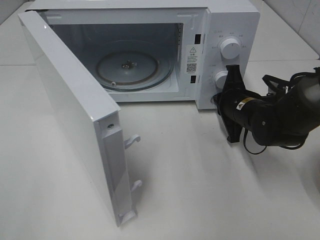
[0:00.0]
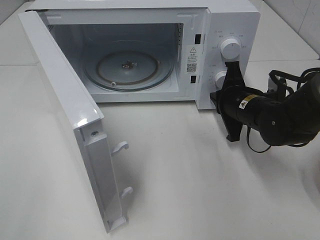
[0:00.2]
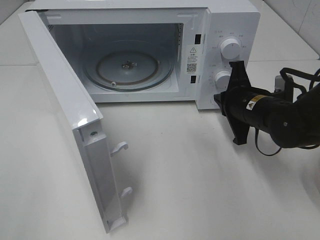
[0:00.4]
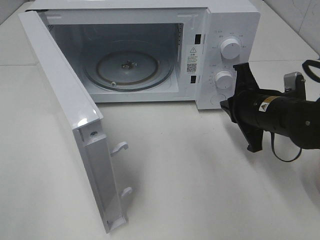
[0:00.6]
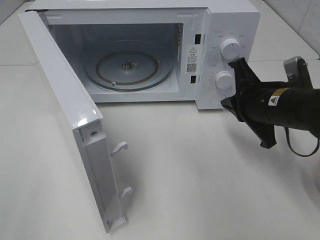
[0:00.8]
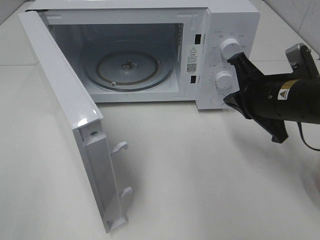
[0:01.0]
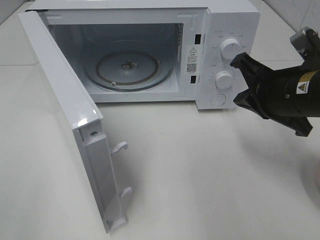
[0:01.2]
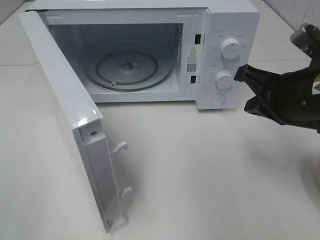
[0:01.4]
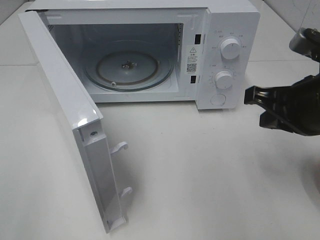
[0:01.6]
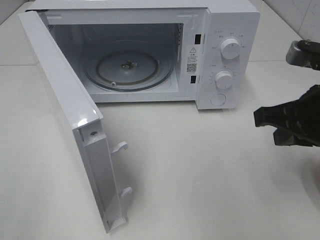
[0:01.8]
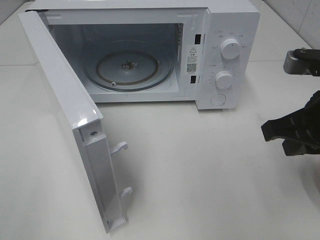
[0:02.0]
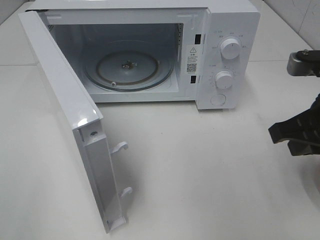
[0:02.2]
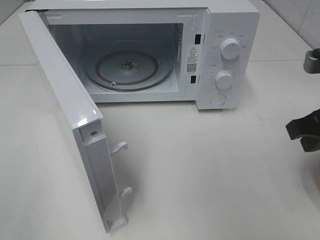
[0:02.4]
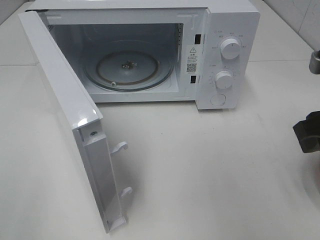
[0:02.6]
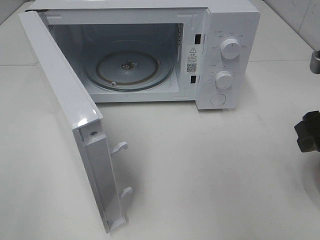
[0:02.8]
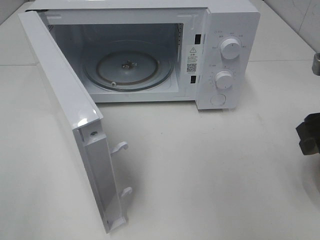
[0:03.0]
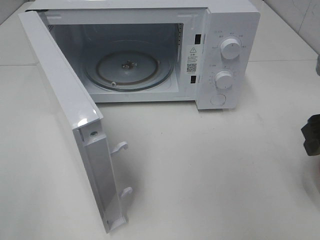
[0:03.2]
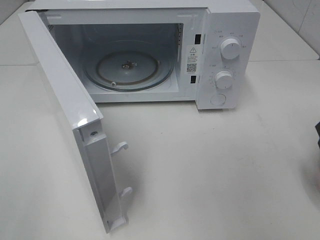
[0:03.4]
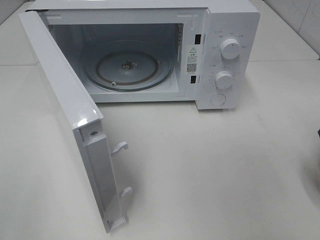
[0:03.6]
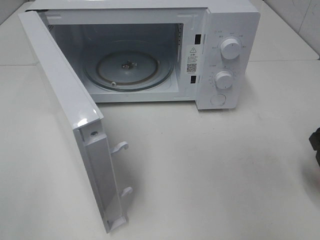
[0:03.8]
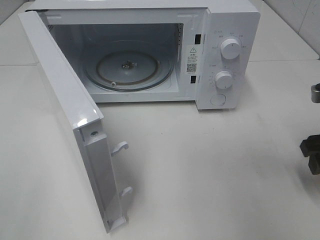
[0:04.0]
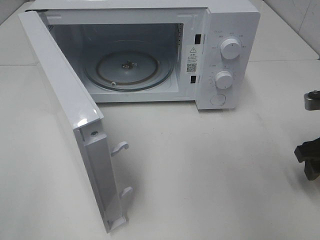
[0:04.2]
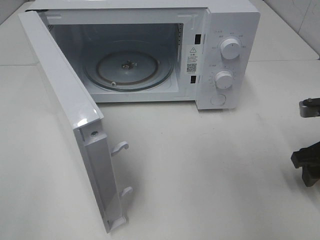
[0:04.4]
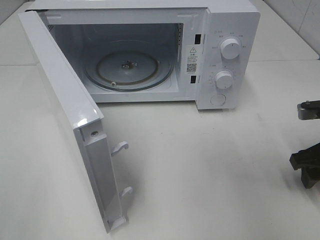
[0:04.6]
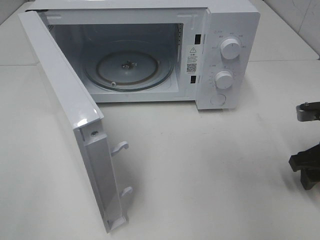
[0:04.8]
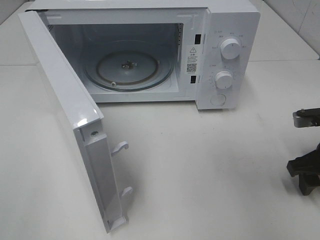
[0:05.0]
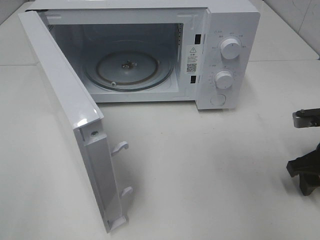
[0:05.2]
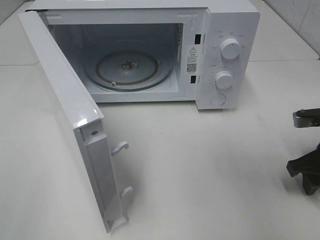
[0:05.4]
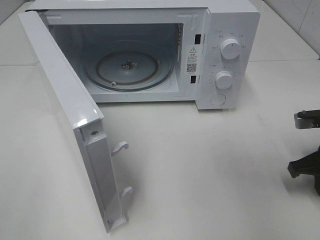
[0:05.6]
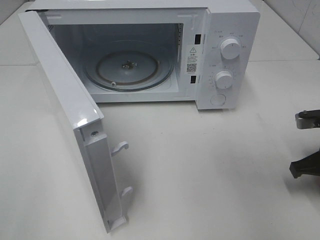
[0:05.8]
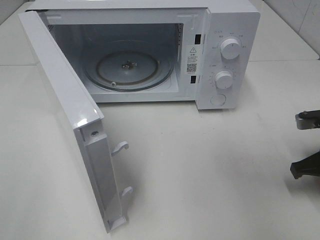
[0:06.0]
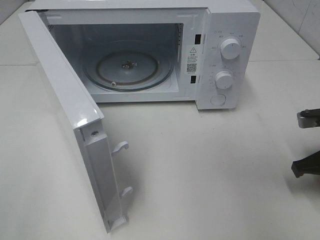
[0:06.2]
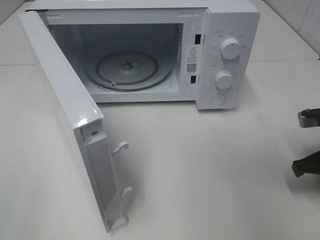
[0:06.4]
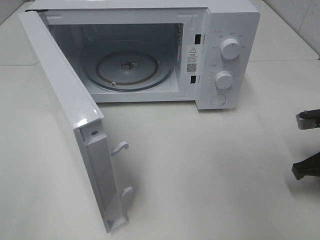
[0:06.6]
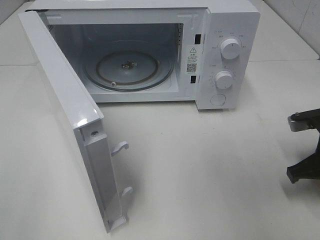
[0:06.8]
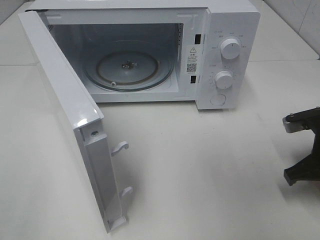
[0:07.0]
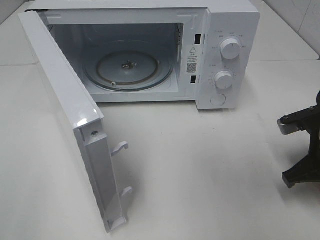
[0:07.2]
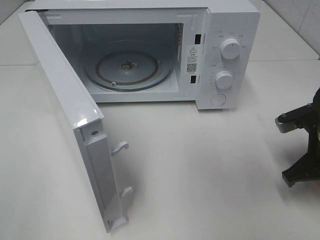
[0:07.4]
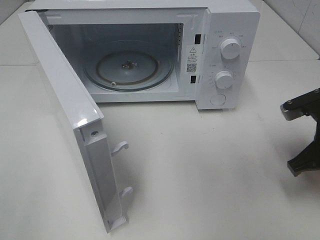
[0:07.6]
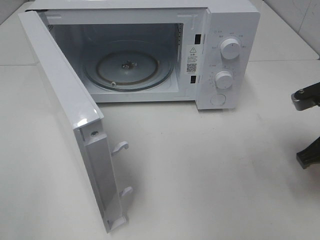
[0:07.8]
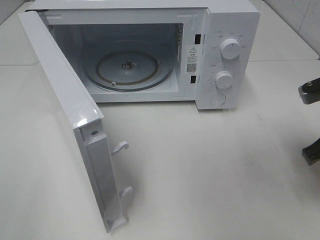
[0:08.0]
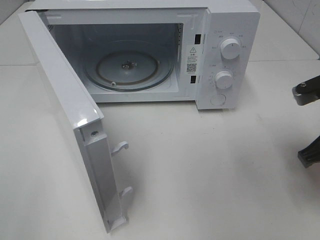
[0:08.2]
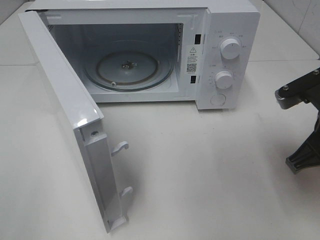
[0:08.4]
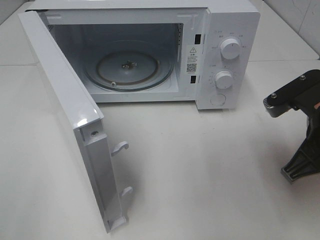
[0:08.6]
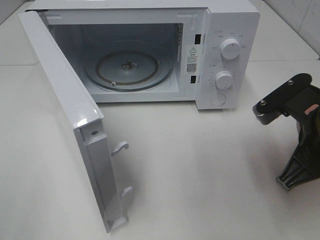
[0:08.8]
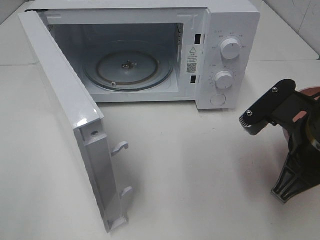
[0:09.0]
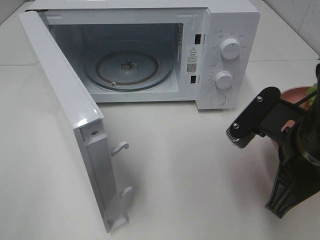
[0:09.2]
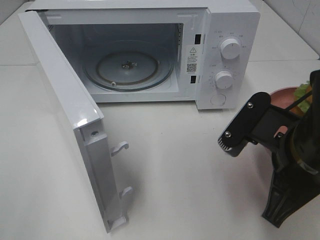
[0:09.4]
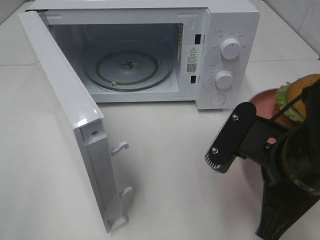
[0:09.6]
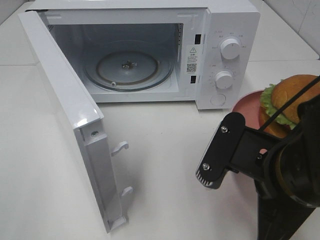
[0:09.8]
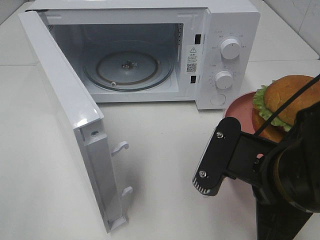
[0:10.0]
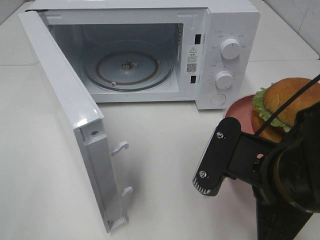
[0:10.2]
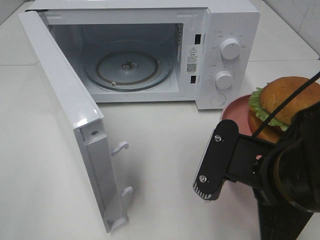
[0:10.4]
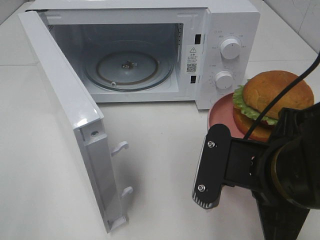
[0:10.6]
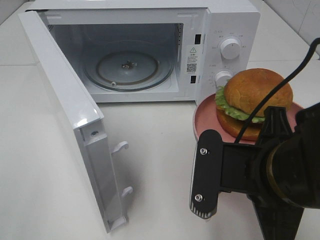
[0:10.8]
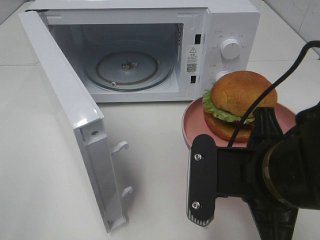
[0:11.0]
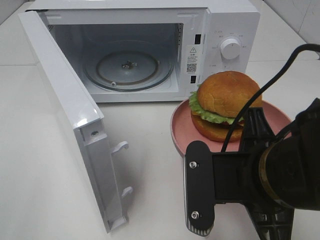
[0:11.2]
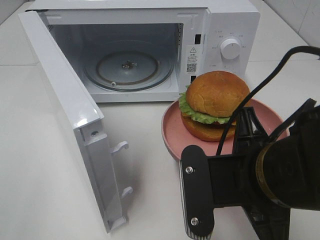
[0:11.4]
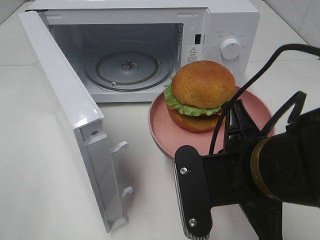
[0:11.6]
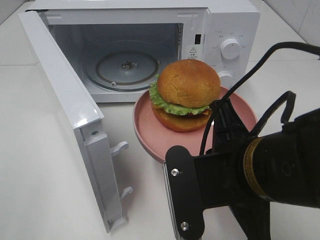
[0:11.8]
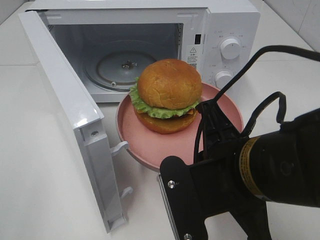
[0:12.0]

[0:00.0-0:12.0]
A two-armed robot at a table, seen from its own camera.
Task of the whole recording: Heat the burger.
Step, 0:00.4 to 0:06.2: Right hand: grab the plate with the hamburger.
0:00.0 to 0:01.6: The right gripper goes roughly 20 cm upward and backward.
0:01.6 to 0:03.0: The right gripper goes roughly 5 cm to the right, and opens its fingers.
0:03.0 to 0:04.4: The right gripper moves downward, some 10 cm.
0:04.4 to 0:06.0: The right gripper closes up.
0:06.0 to 0:07.6: The right gripper shifts by roughly 5 cm.
0:07.6 to 0:09.0: The right gripper moves to the left and backward, roughly 10 cm.
0:09.0 to 0:10.4: The right gripper shifts about 10 cm to the left and backward.

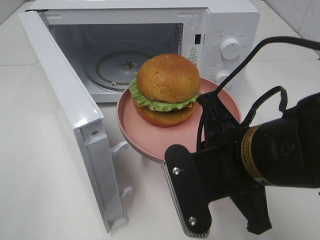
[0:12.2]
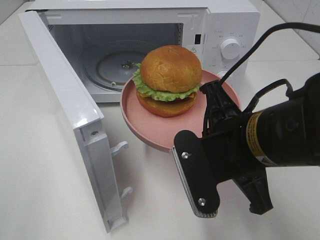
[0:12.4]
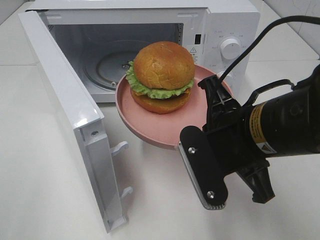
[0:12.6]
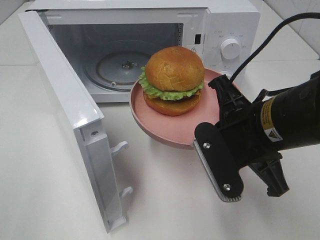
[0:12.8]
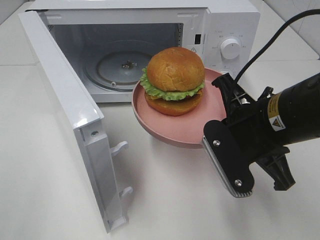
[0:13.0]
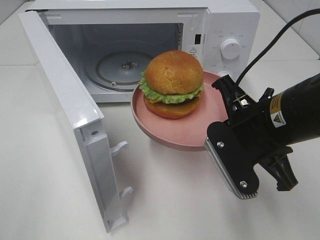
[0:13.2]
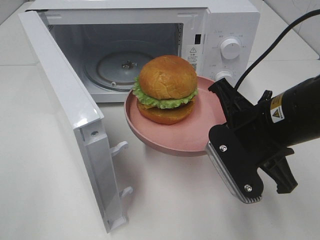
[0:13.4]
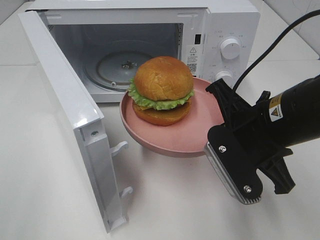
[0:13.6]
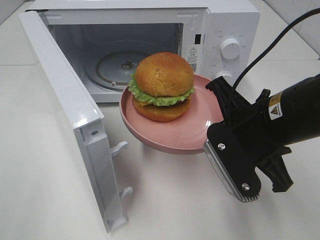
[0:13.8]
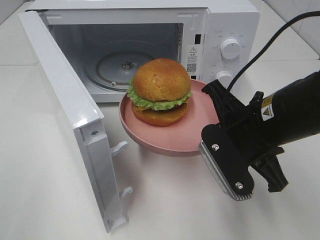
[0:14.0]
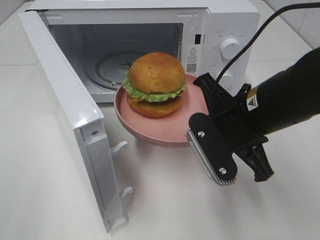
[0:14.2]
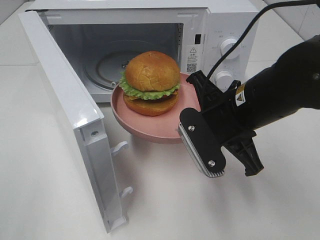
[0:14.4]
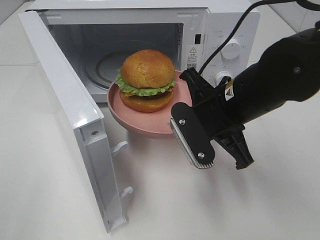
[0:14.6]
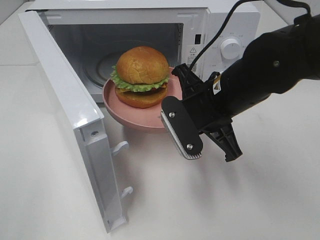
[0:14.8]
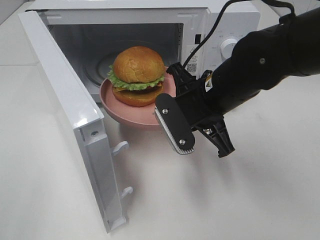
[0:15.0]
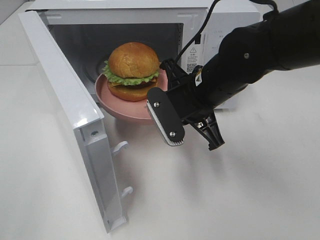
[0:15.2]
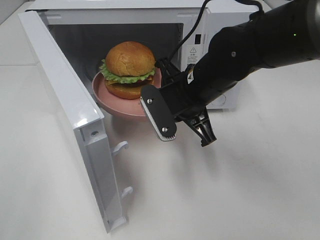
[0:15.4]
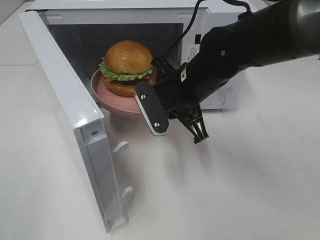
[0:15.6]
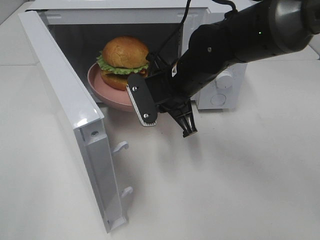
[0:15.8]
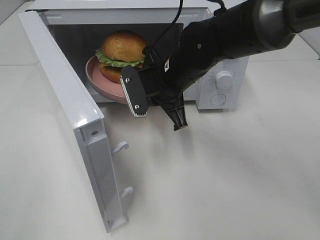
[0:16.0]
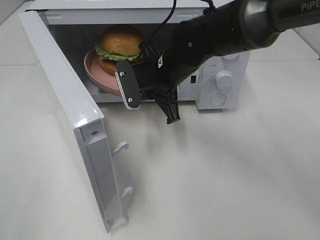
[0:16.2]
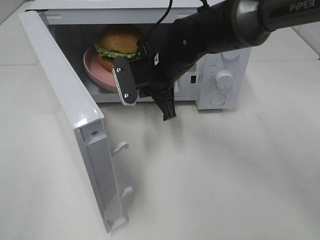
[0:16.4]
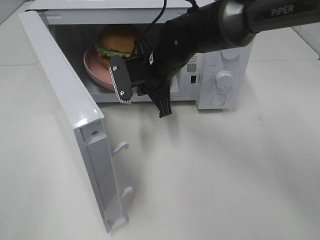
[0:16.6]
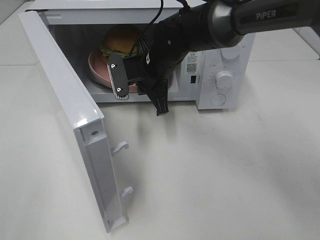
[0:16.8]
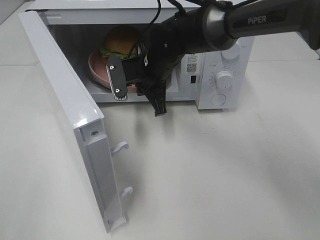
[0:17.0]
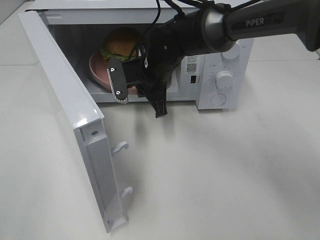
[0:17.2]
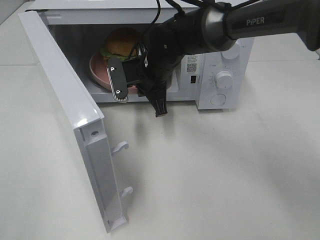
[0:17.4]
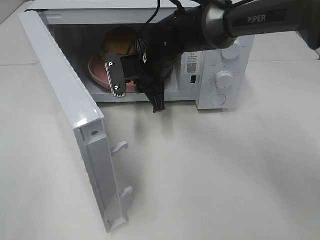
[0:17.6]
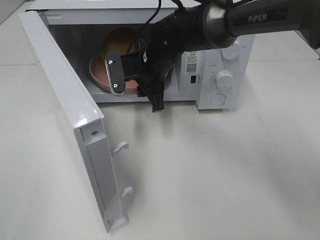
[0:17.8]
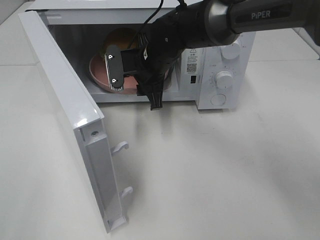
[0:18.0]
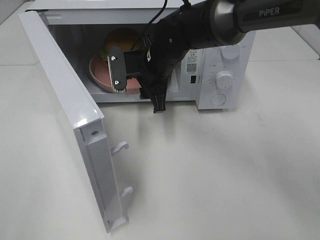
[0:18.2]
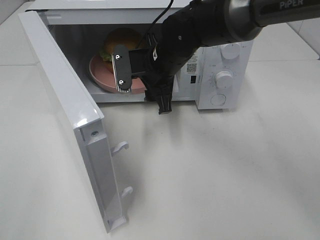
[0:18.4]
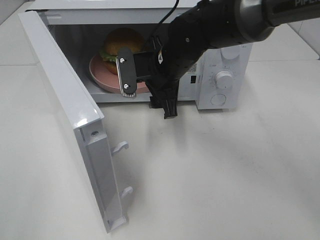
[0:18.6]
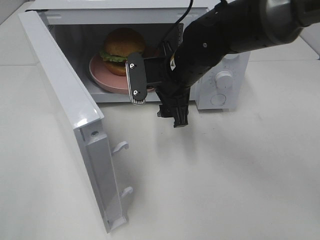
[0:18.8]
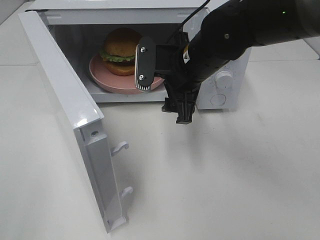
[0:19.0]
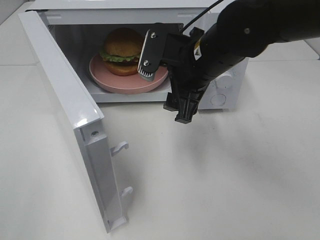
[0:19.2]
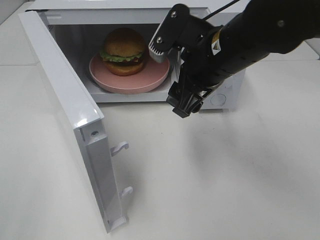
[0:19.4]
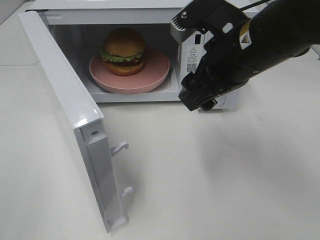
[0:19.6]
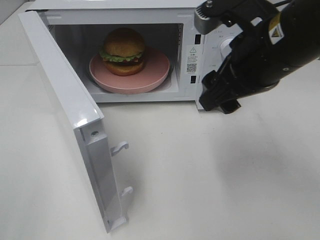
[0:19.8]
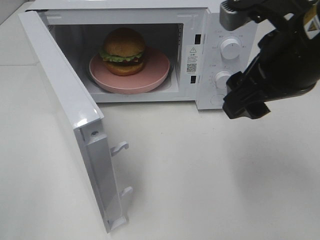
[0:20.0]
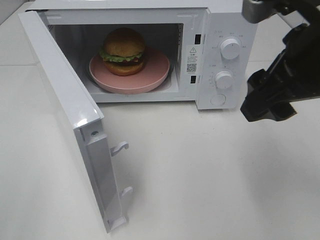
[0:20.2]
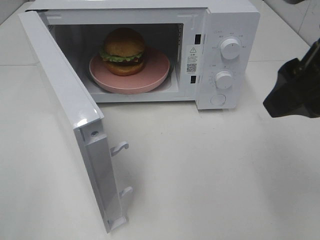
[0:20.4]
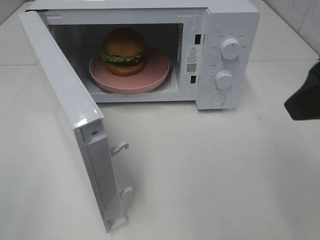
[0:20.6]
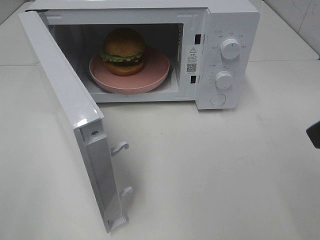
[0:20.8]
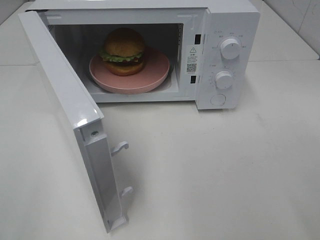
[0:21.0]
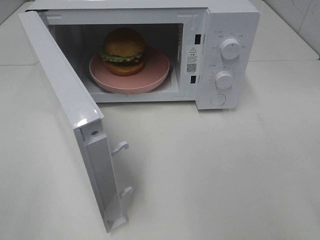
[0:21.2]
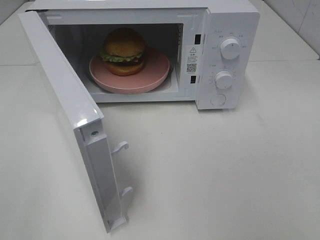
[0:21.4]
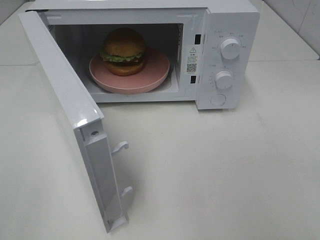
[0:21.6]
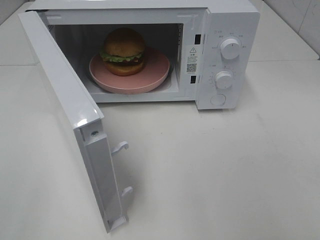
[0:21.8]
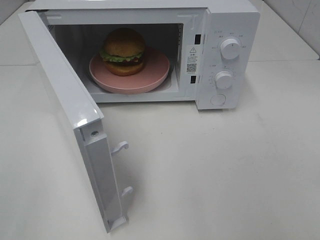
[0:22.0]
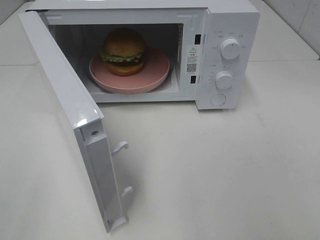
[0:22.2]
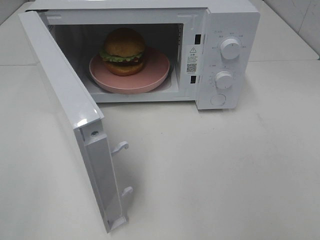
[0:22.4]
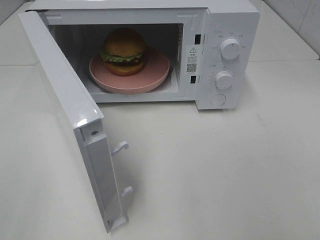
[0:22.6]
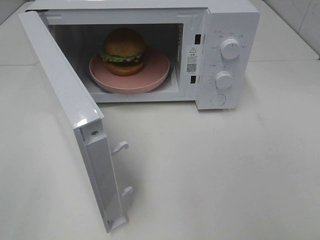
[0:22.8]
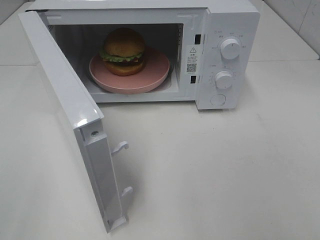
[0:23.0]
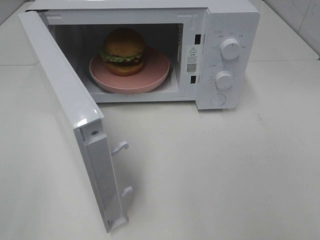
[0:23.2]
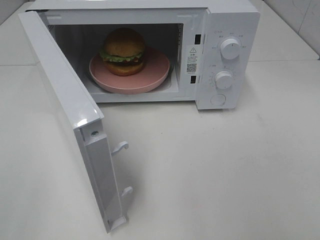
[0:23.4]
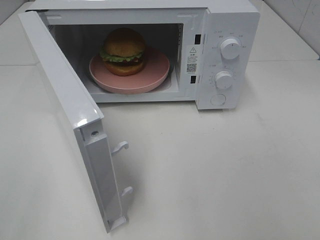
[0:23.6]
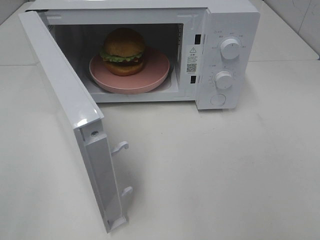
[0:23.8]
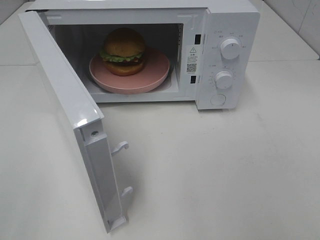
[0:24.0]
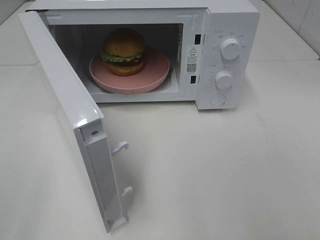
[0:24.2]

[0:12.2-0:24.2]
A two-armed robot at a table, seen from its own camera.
Task of the whole recording: Heat the burger.
Step, 0:12.2 to 0:17.4: Right hand: place the plate in the microwave.
0:12.2 to 0:13.8: The right gripper travels forward by about 5 cm.
0:13.8 to 0:15.2: The right gripper is displaced forward and to the left by some 10 cm.
0:15.2 to 0:16.6: The right gripper is displaced forward and to the left by about 10 cm.
0:16.6 to 0:18.2: The right gripper opens.
0:18.2 to 0:19.8: The right gripper travels backward, to the right and upward by roughly 25 cm.
0:19.8 to 0:21.2: The right gripper shifts about 20 cm backward and to the right.
